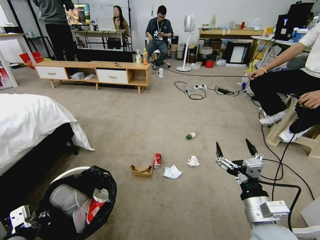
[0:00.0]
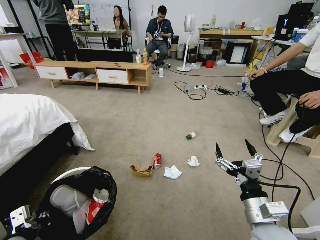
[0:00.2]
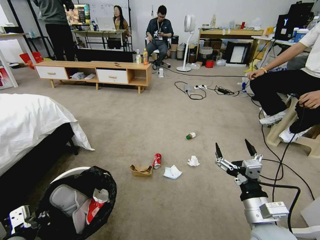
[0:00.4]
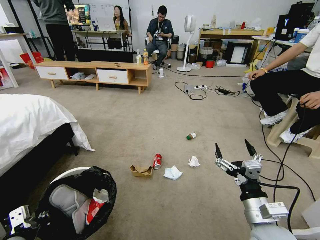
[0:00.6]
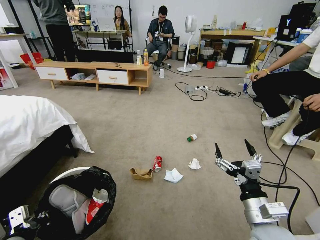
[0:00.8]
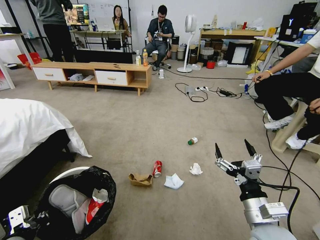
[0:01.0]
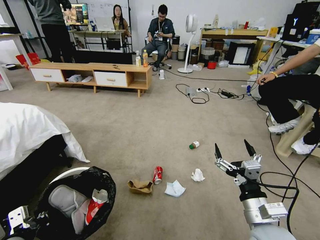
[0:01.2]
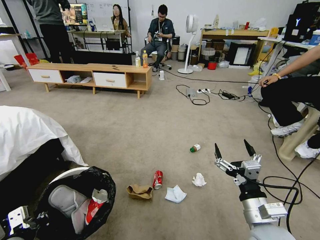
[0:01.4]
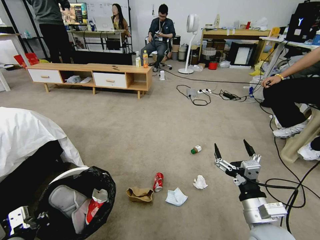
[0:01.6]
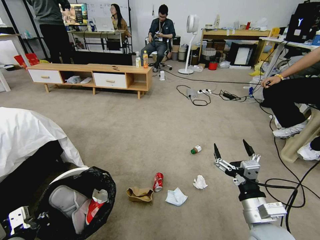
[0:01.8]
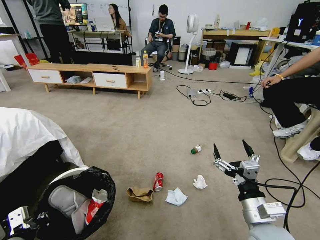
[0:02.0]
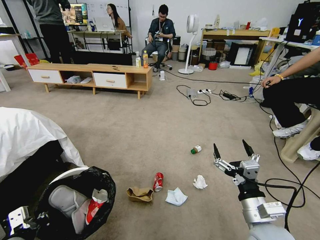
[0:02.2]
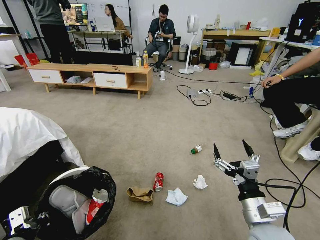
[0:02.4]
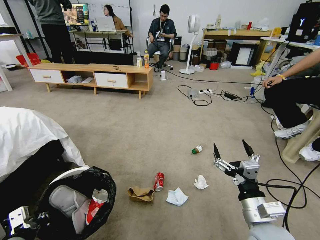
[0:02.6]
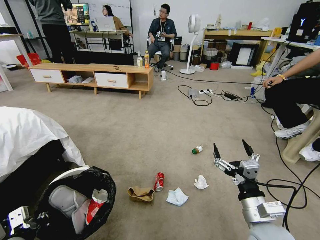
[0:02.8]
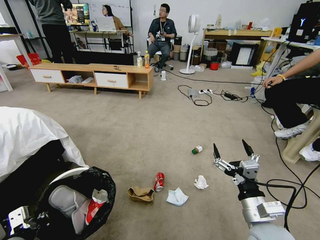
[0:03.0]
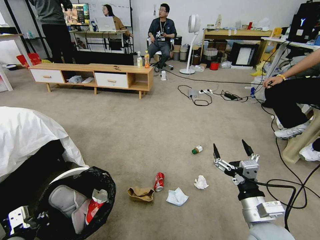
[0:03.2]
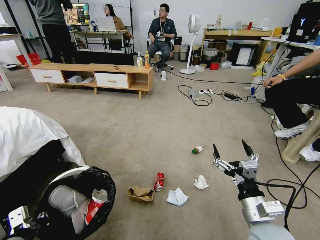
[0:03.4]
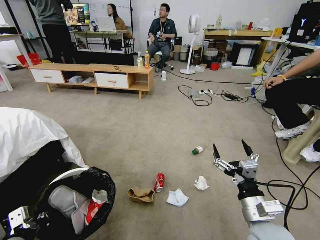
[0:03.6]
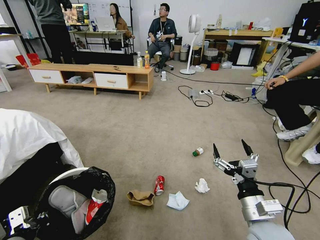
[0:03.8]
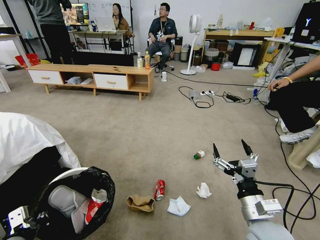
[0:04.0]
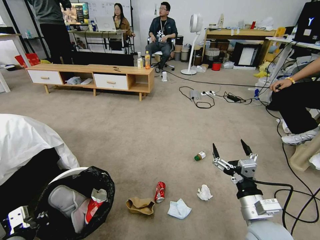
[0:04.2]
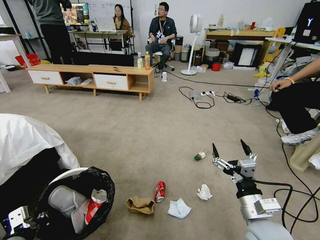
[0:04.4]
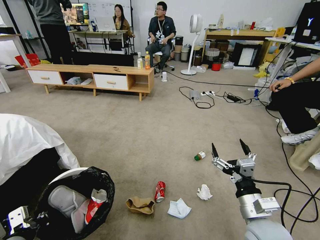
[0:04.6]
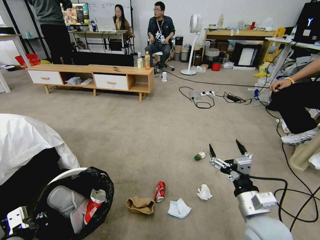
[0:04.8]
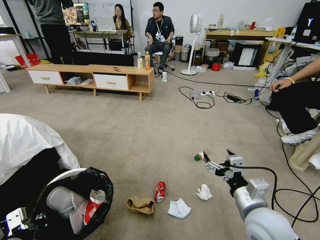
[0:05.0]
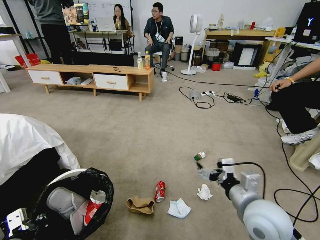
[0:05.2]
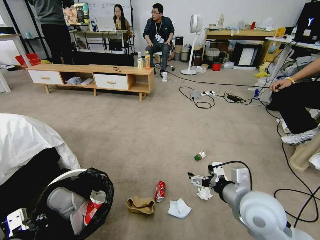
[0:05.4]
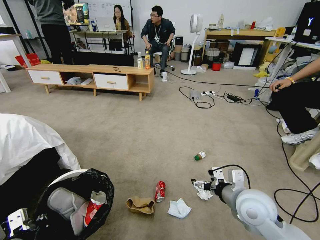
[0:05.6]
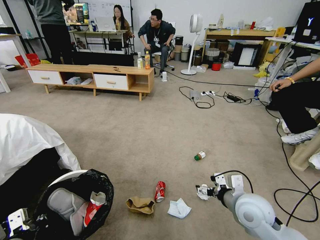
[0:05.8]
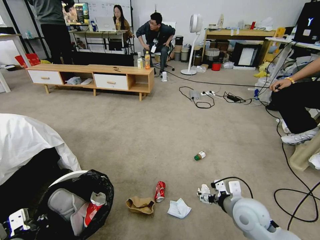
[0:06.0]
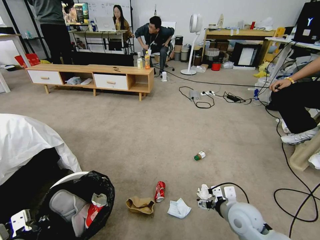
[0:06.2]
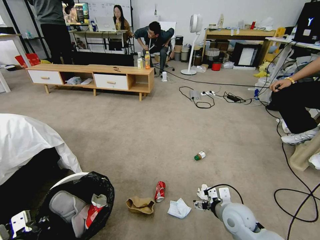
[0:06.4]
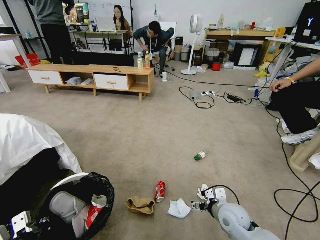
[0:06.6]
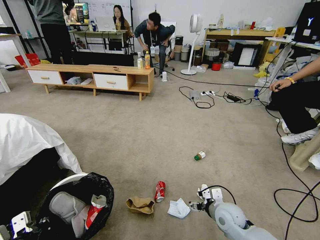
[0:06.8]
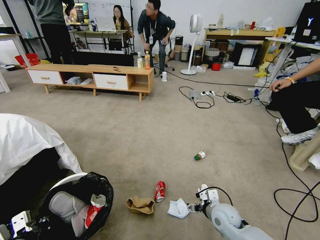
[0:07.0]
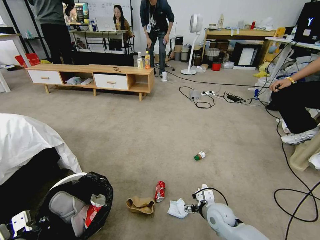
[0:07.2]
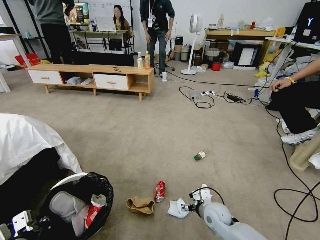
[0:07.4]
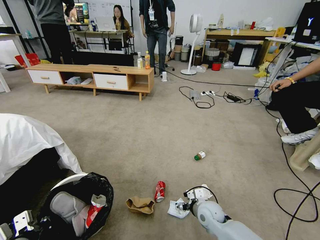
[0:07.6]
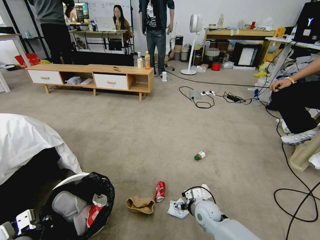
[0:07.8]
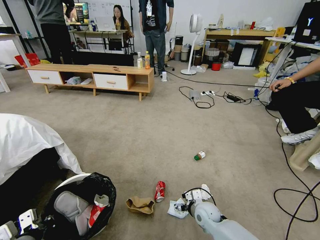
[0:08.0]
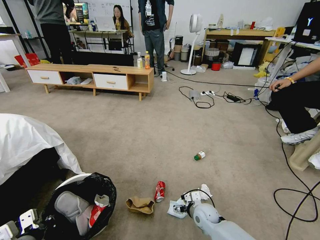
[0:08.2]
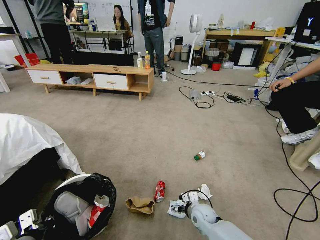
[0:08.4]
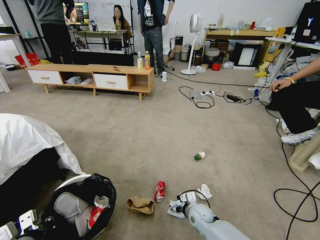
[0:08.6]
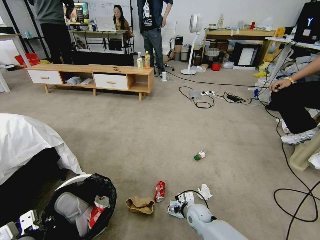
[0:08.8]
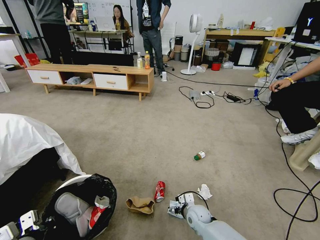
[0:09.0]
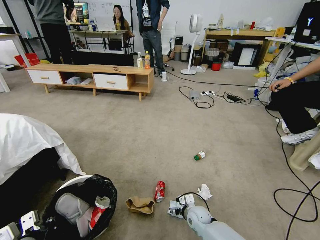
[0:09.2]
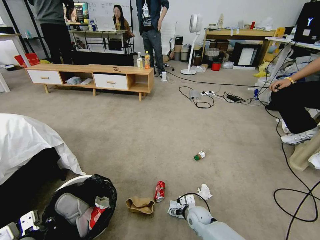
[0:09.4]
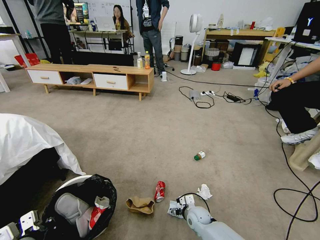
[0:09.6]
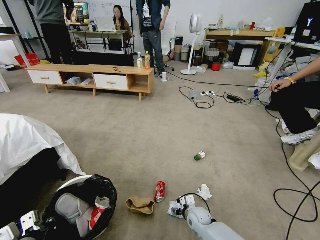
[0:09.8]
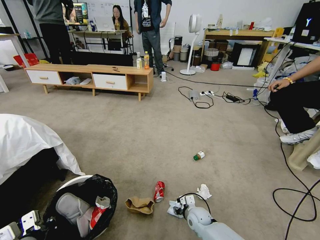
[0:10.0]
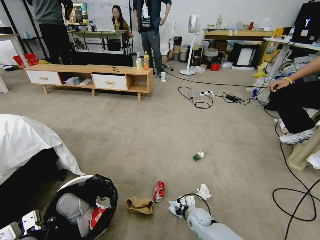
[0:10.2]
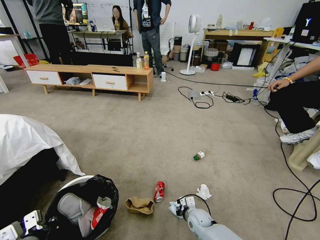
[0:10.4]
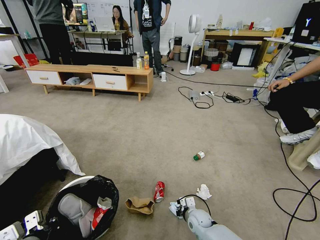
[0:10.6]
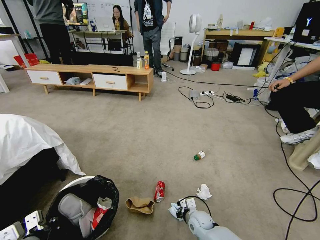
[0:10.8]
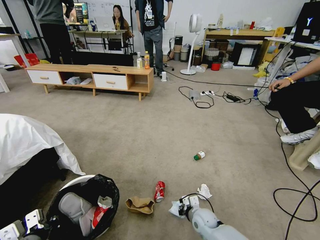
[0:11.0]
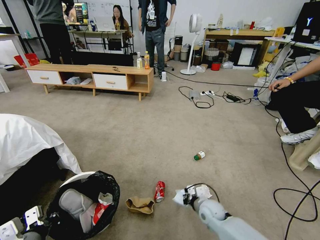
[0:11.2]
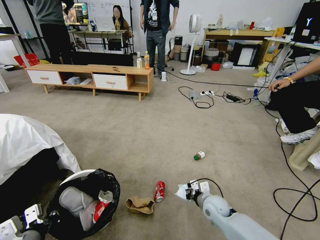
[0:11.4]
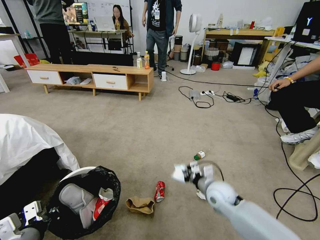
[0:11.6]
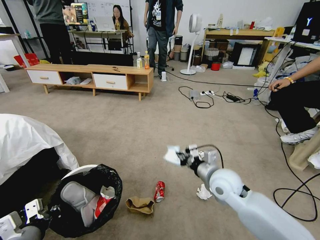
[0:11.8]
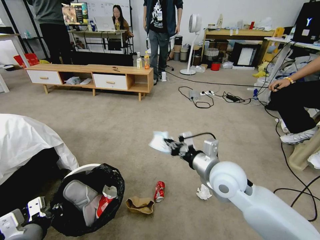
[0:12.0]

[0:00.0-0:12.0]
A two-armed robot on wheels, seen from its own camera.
Task of the whole recording: Pick up the trash bin and place the garbage on the floor into it.
0:01.6 to 0:03.0: Neither gripper changes place.
0:04.4 to 0:06.0: The right gripper moves forward, about 5 cm, and travels upward and back again, some 5 cm each way.
0:06.0 to 0:07.6: The right gripper shifts roughly 15 cm downward, to the left and forward.
0:07.6 to 0:09.0: The right gripper moves downward, approximately 5 cm.
0:09.0 to 0:10.4: The right gripper closes.
0:10.4 to 0:12.0: The right gripper travels upward by some 35 cm.

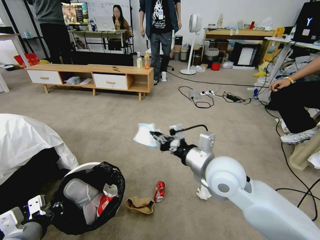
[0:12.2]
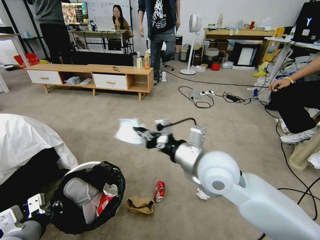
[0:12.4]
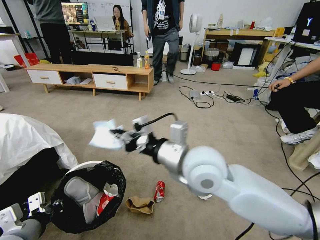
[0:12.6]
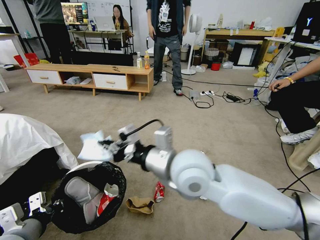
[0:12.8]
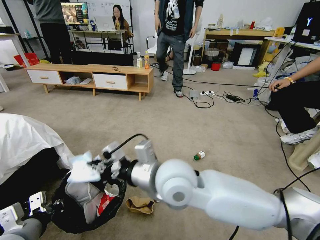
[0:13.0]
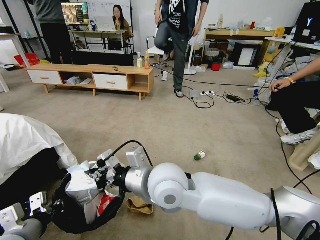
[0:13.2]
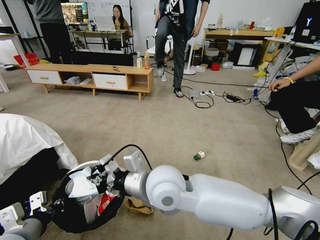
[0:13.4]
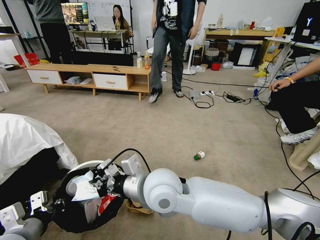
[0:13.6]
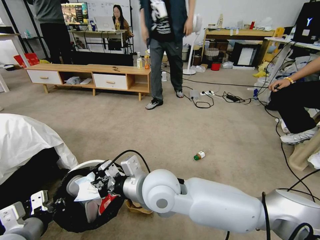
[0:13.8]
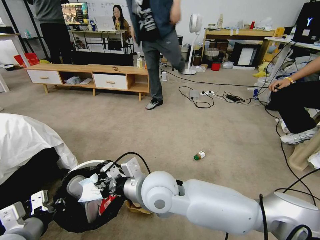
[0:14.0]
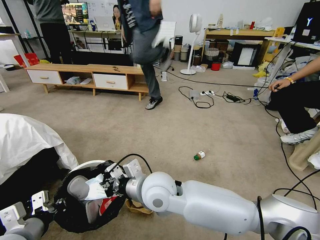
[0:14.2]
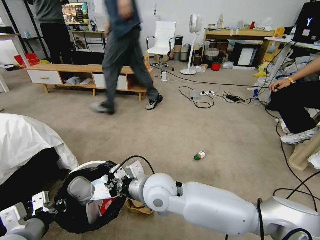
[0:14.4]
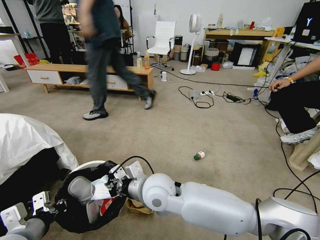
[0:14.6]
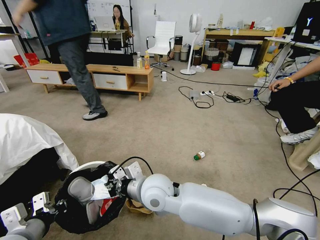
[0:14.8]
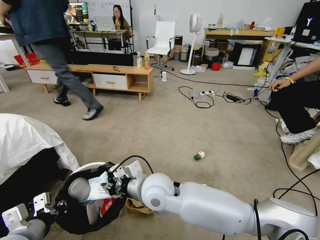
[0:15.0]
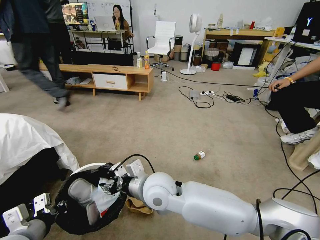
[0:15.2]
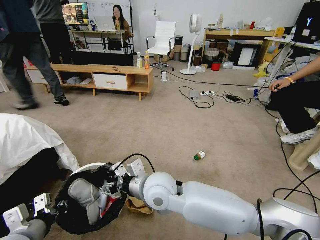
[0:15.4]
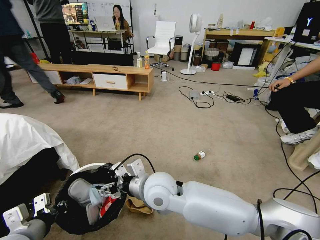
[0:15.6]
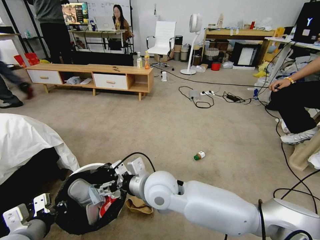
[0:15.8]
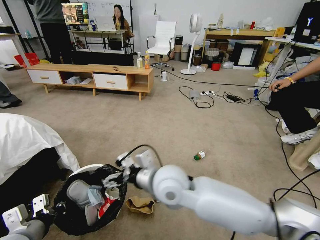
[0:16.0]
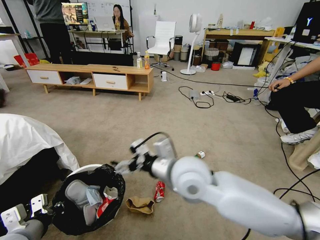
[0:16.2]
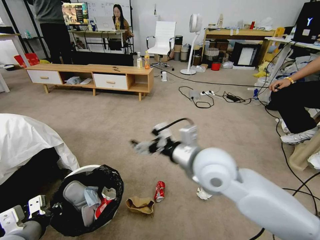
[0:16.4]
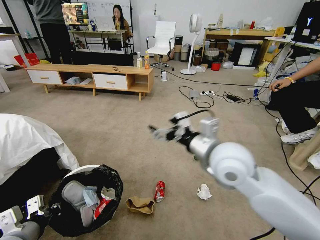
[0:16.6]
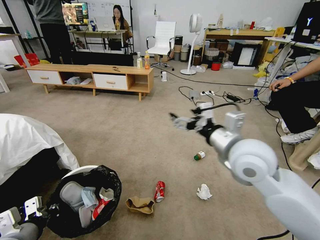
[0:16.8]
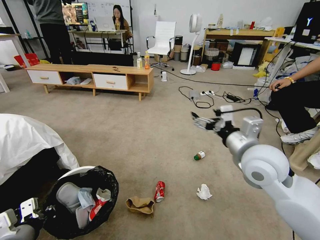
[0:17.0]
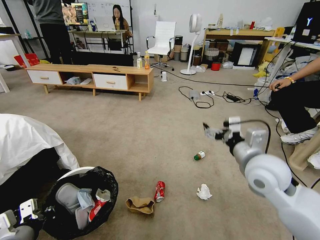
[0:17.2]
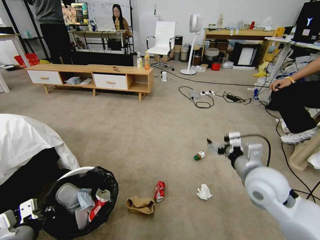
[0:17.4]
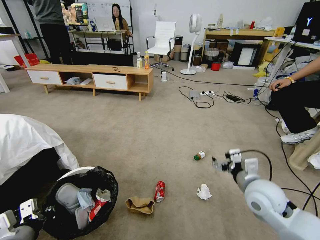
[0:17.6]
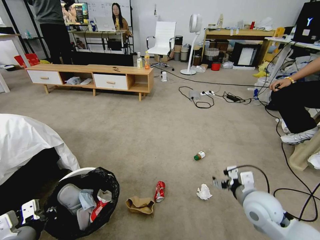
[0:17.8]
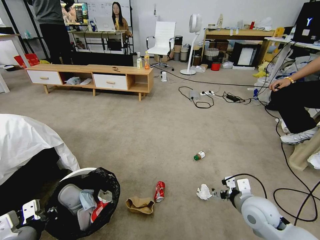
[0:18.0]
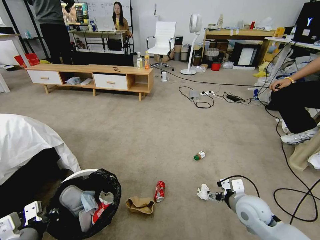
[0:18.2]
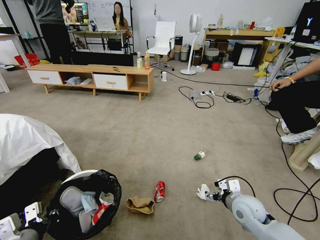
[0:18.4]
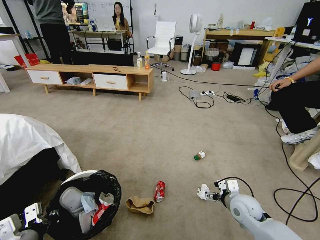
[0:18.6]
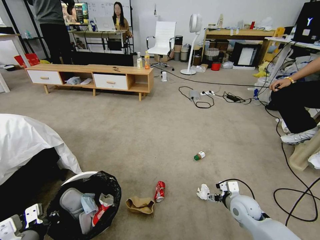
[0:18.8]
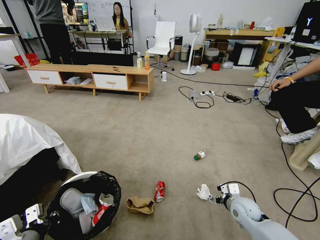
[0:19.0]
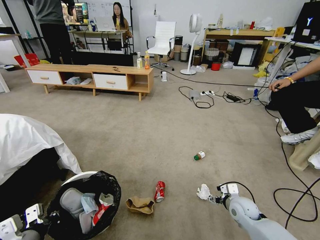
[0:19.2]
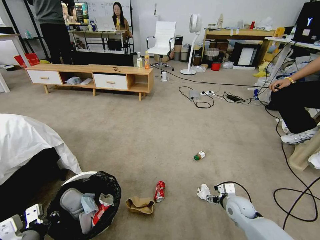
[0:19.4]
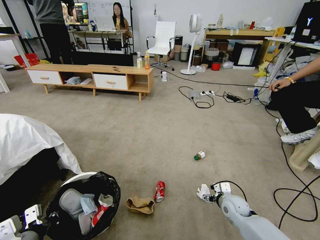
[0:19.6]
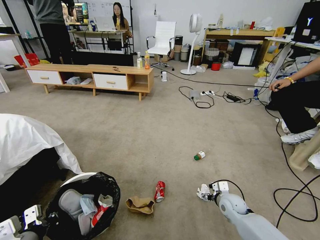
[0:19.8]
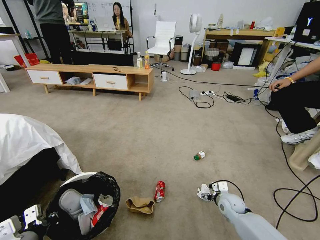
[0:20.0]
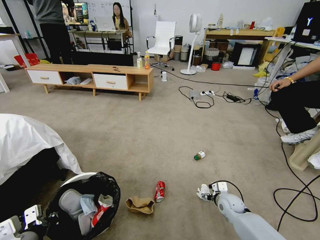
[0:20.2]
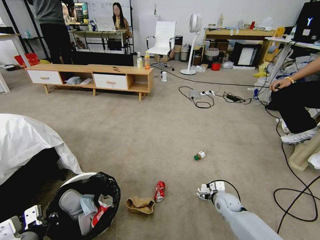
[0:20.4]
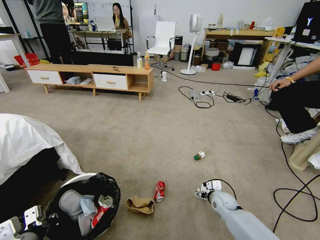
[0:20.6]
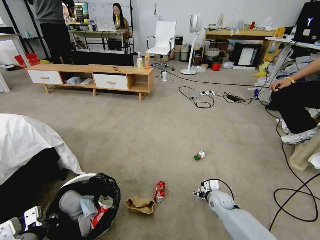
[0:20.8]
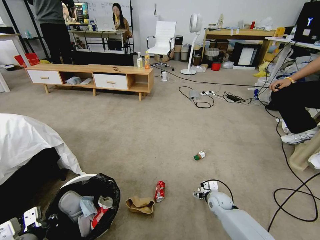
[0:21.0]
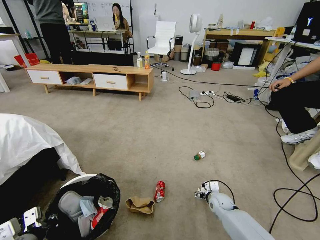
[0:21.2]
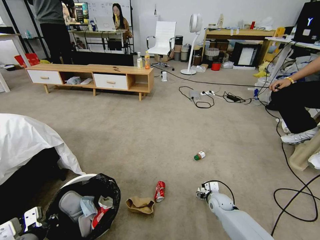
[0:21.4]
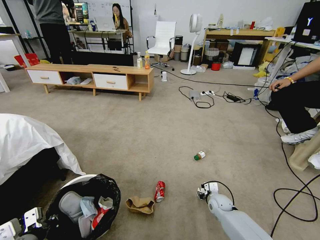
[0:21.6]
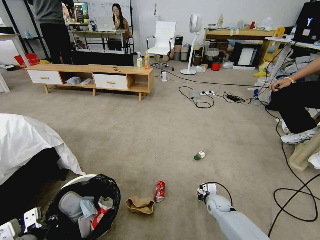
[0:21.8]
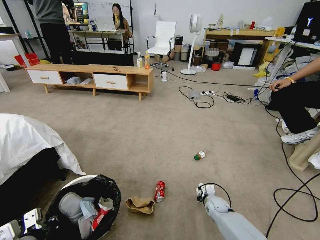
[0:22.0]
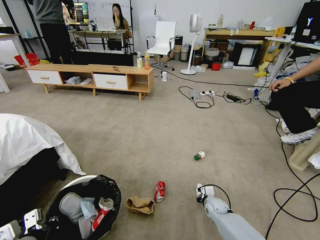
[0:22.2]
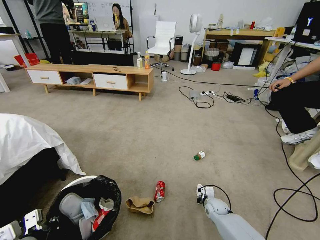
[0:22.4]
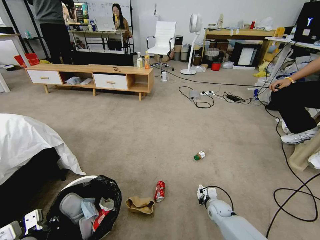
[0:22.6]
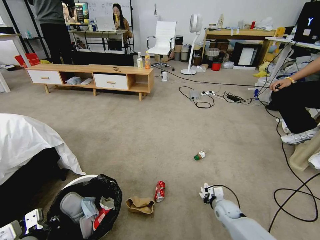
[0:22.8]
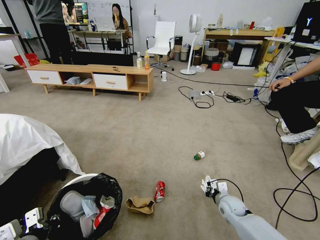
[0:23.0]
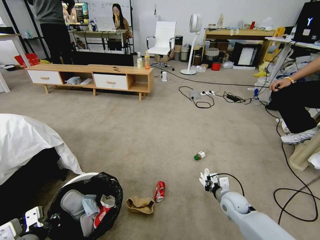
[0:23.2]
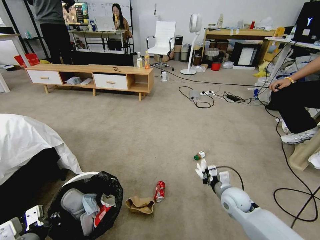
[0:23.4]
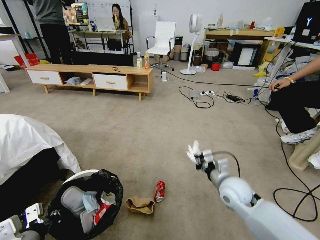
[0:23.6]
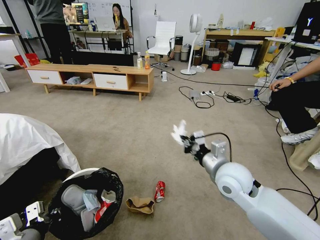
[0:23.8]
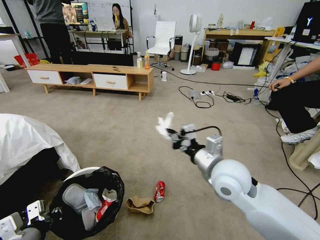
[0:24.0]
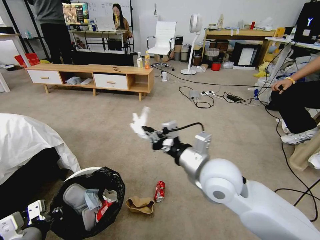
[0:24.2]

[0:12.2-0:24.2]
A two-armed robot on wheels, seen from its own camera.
Task of the whole recording: Pick up the trash bin and place the garbage on the floor into it.
0:12.2 to 0:13.8: The right gripper moves to the left, approximately 15 cm.
0:13.8 to 0:15.2: The right gripper travels downward by approximately 5 cm, and opens up.
0:15.2 to 0:16.6: The right gripper moves to the right and upward, some 20 cm, and opens up.
0:16.6 to 0:18.2: The right gripper shifts some 25 cm downward and to the right.
0:18.2 to 0:19.8: The right gripper shifts about 15 cm downward and forward.
0:19.8 to 0:21.2: The right gripper goes approximately 5 cm downward.
0:21.2 to 0:22.6: The right gripper closes.
0:22.6 to 0:24.2: The right gripper shifts approximately 40 cm upward.
